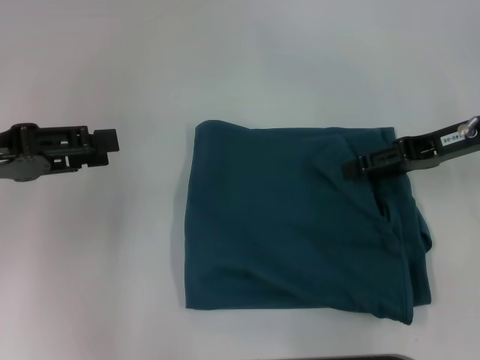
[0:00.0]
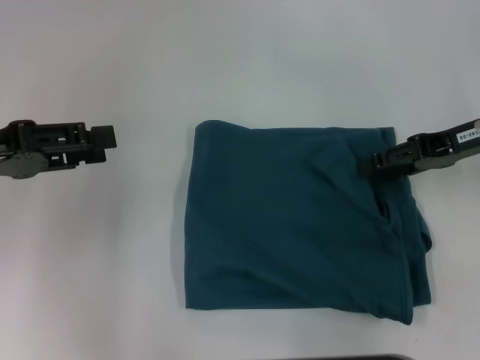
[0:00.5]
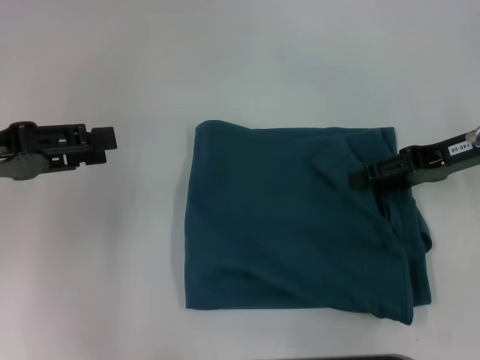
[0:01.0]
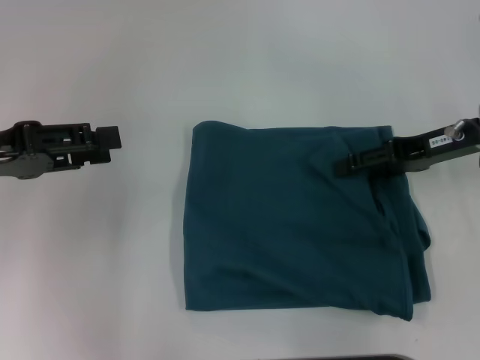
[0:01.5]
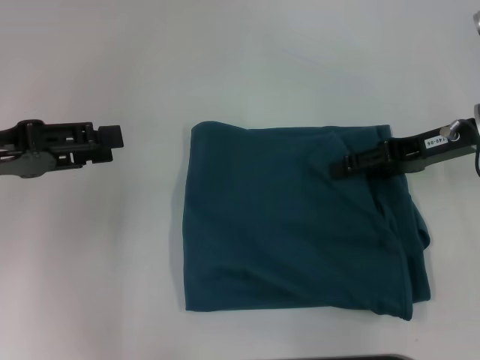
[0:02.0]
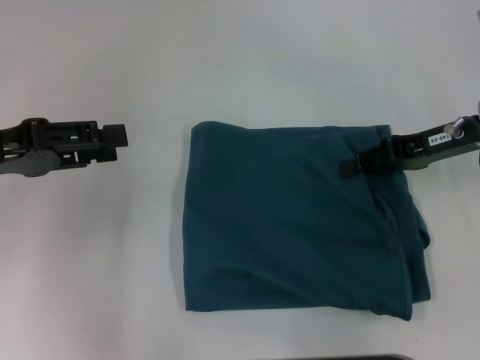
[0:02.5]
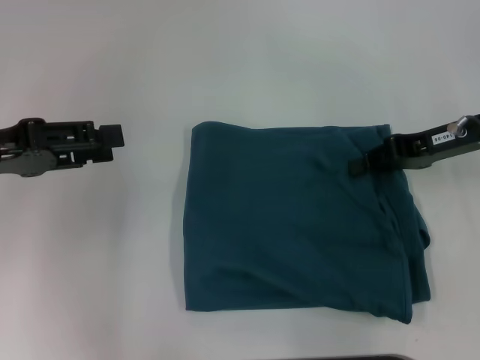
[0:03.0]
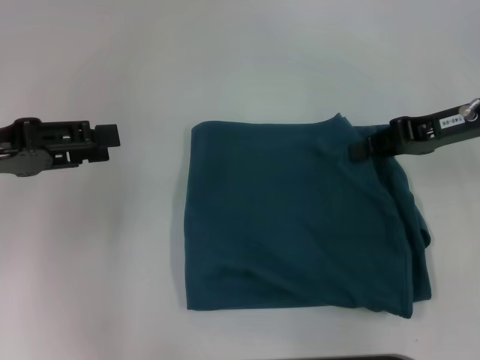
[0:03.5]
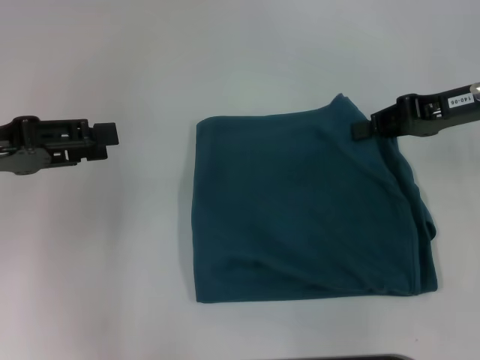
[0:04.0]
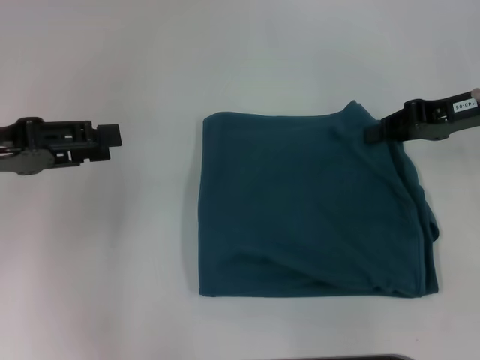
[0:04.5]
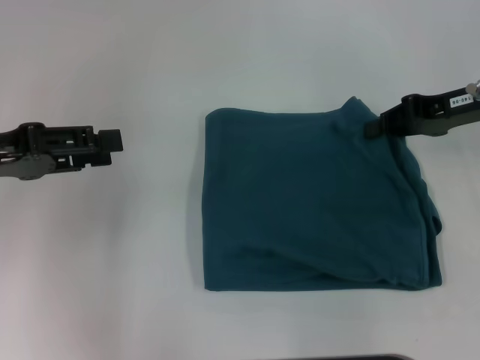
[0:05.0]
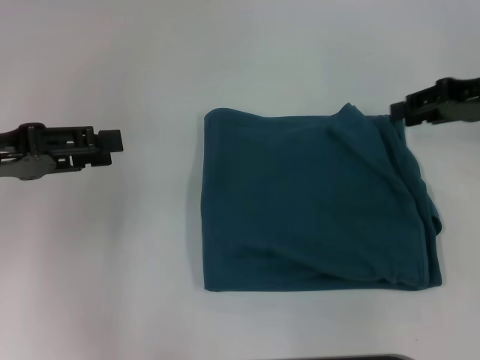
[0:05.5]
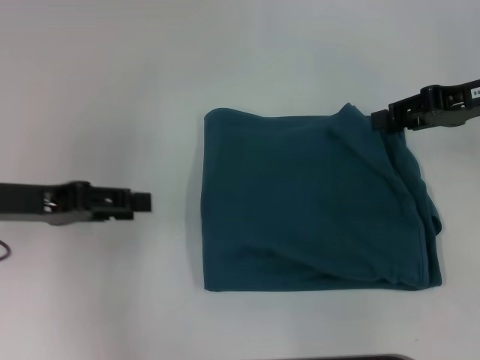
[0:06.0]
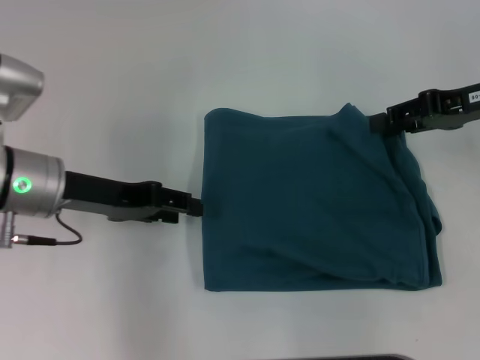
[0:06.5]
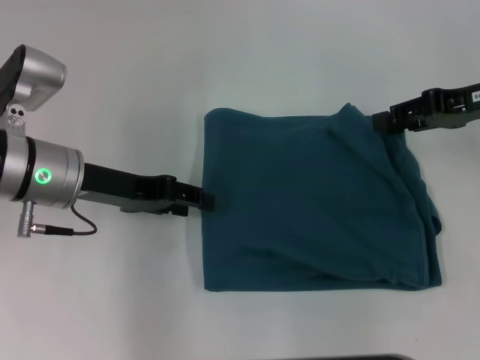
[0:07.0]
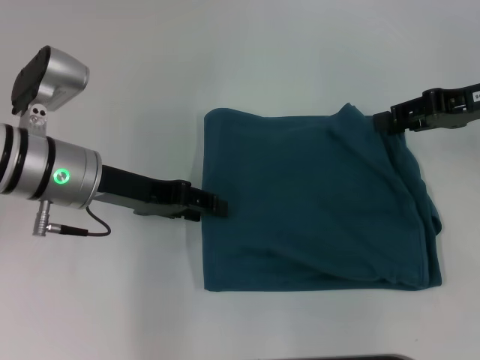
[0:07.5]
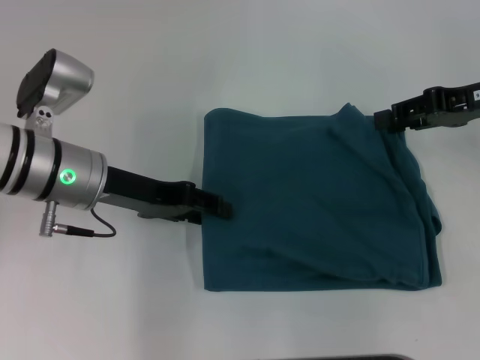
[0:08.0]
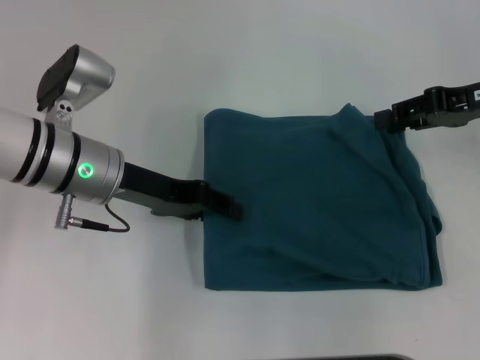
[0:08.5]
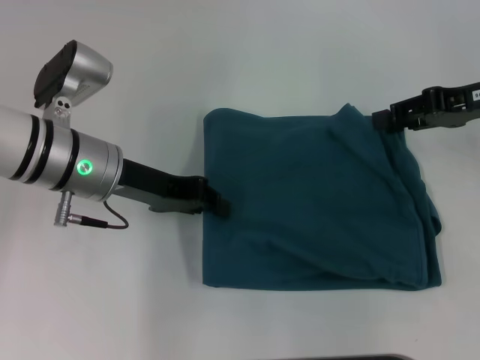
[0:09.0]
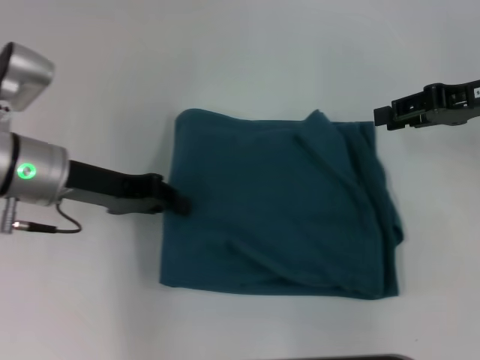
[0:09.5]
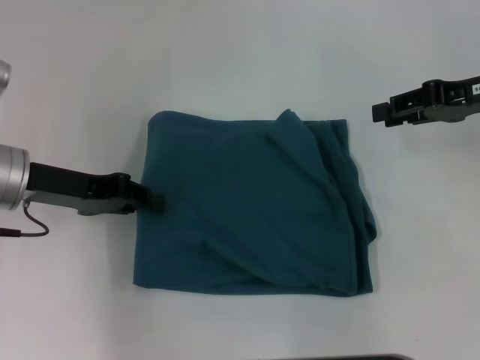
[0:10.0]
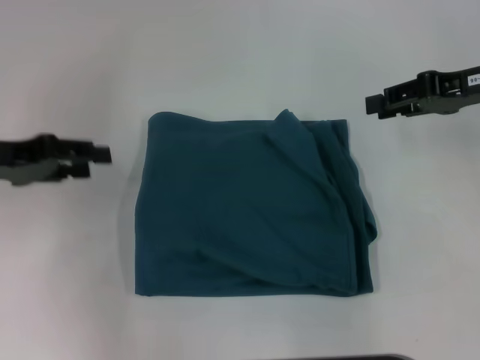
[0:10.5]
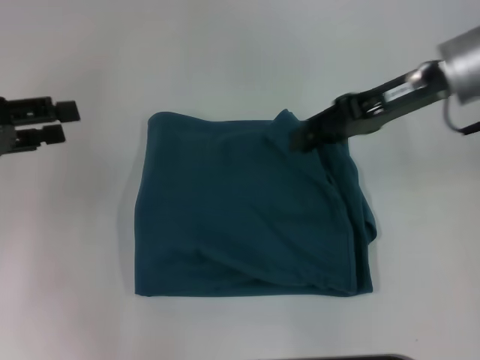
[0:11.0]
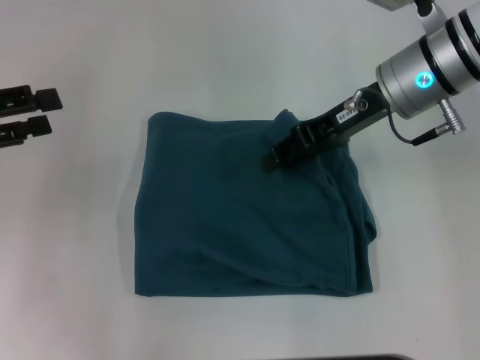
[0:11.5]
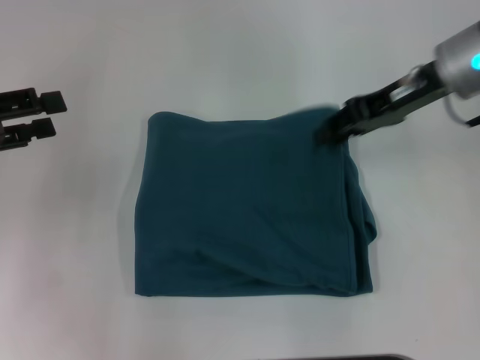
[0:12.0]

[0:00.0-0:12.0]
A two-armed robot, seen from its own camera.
0:00.0 to 0:02.0: The grippers stay close to where they were, moving slightly.
0:02.0 to 0:04.0: The right gripper closes up.
0:04.0 to 0:06.0: The grippers make only small movements.
0:06.0 to 0:08.0: The left gripper goes approximately 10 cm to the right.
0:08.0 to 0:10.0: The left gripper is displaced to the left by roughly 5 cm, and closes its fingers.
0:10.0 to 0:12.0: Both grippers move to the left, about 10 cm. The left gripper opens its fingers.

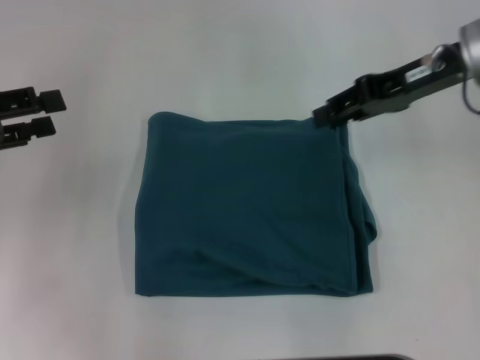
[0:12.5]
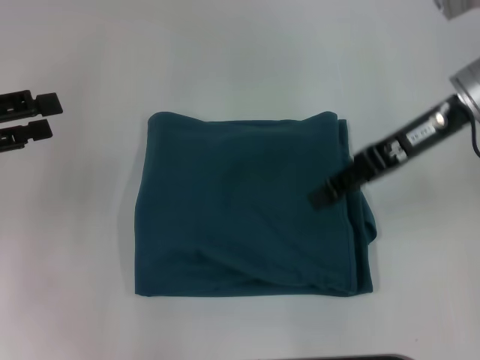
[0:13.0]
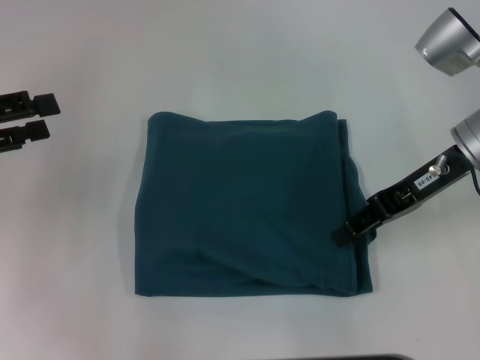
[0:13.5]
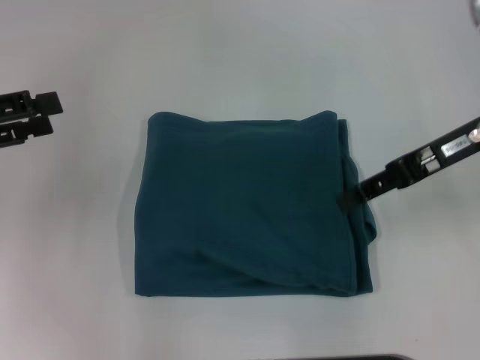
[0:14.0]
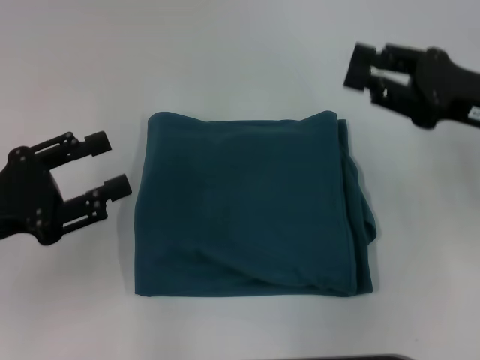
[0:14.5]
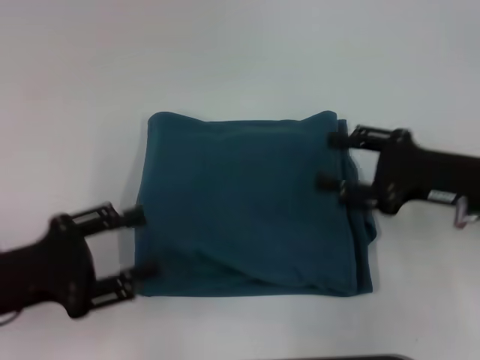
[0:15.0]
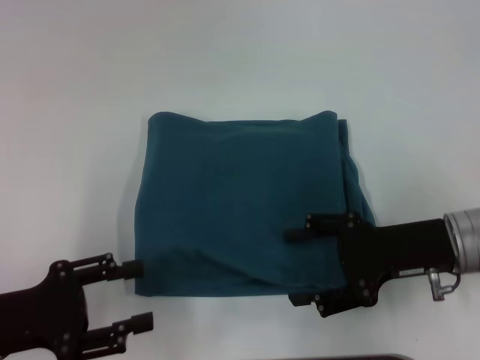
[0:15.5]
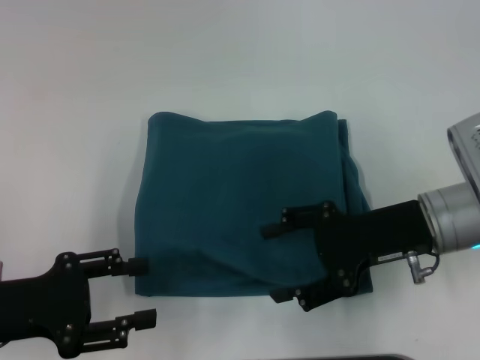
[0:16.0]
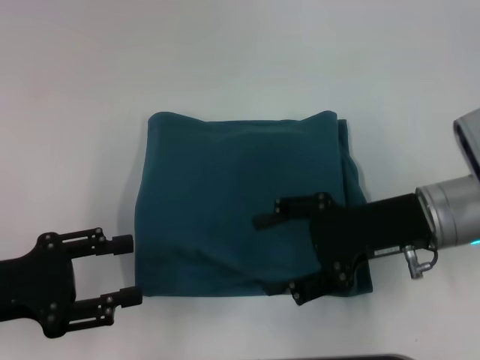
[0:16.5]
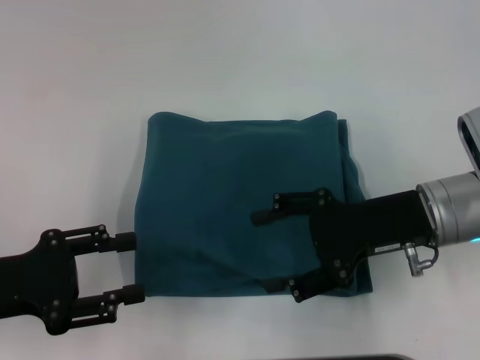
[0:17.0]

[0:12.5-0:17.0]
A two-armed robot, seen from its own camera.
0:12.5 to 0:14.5: The left gripper is displaced backward by about 5 cm; the right gripper is displaced backward and downward by about 10 cm.
0:14.5 to 0:17.0: The right gripper travels to the left by roughly 10 cm, and opens.

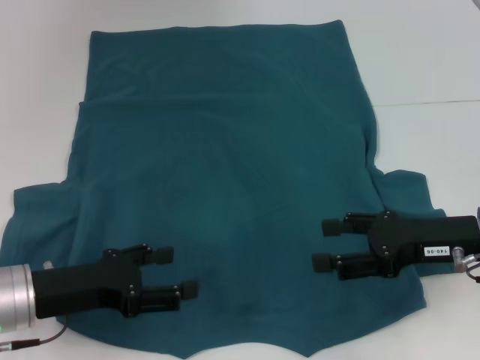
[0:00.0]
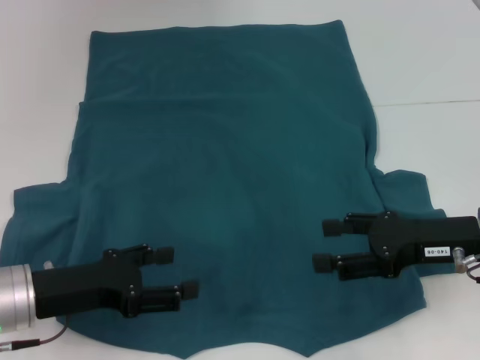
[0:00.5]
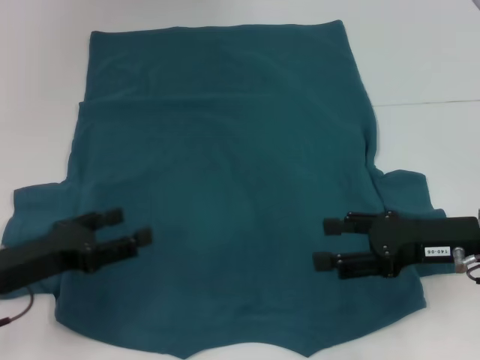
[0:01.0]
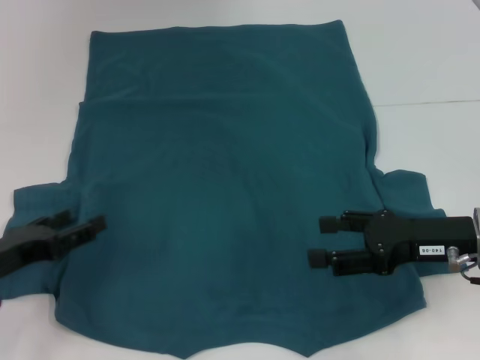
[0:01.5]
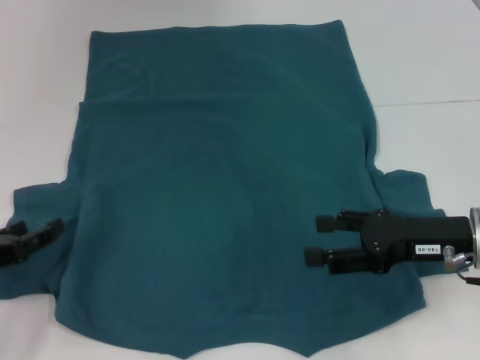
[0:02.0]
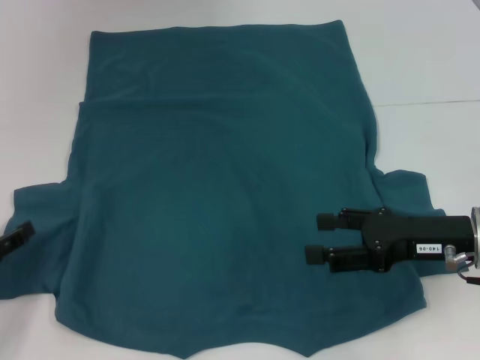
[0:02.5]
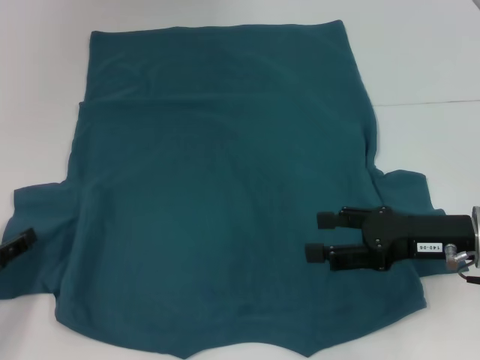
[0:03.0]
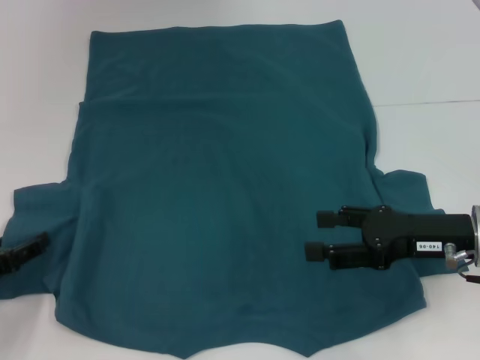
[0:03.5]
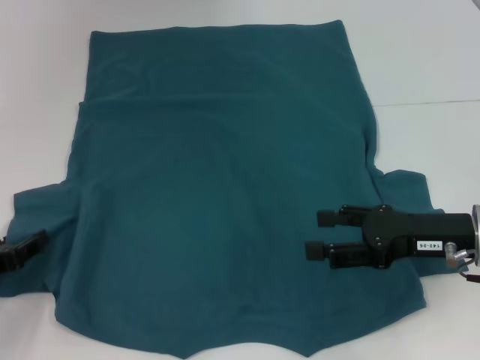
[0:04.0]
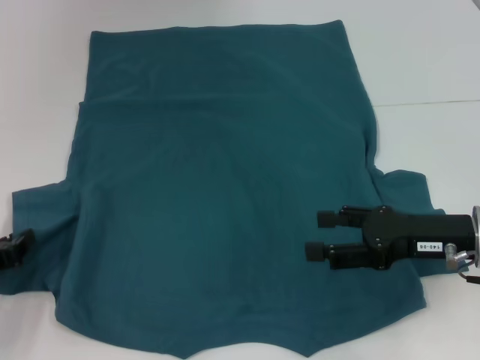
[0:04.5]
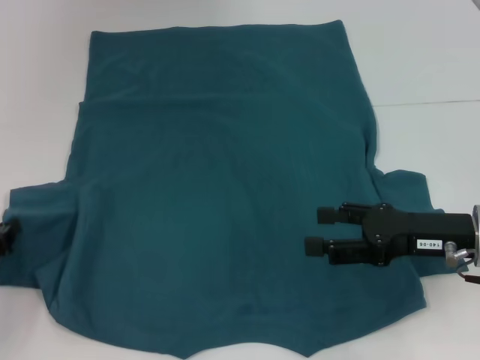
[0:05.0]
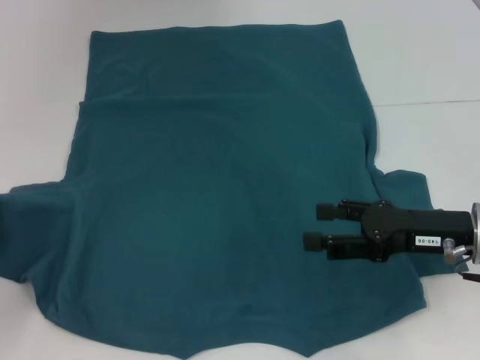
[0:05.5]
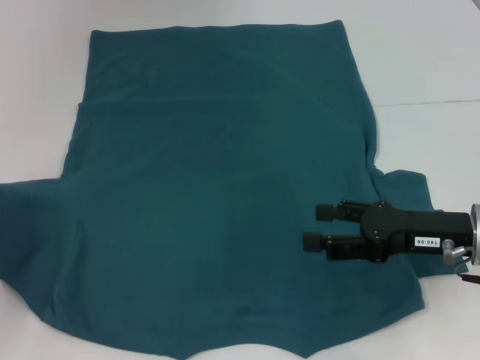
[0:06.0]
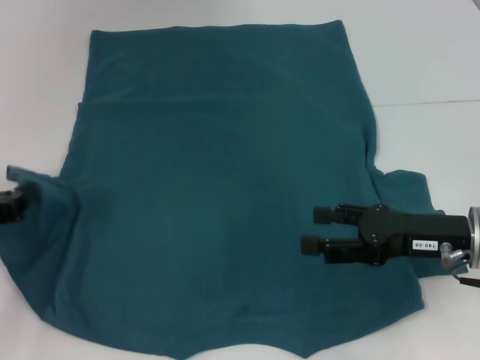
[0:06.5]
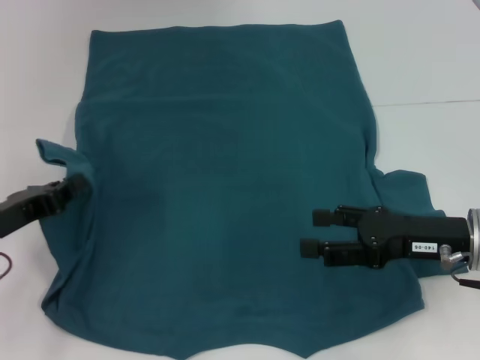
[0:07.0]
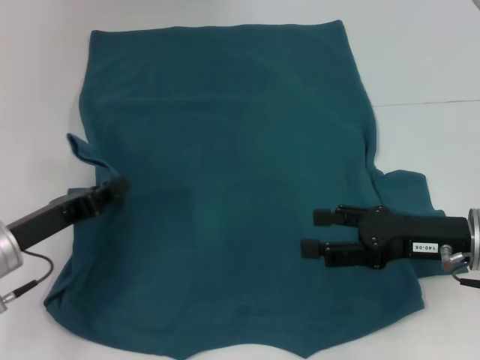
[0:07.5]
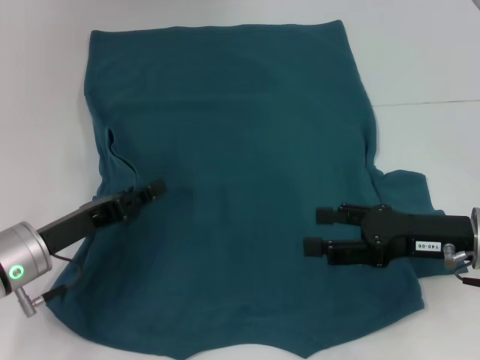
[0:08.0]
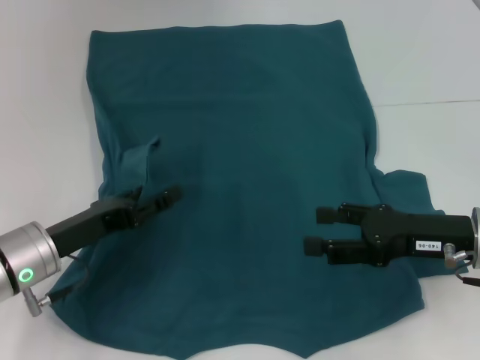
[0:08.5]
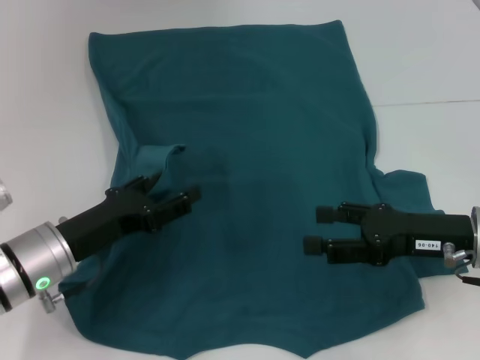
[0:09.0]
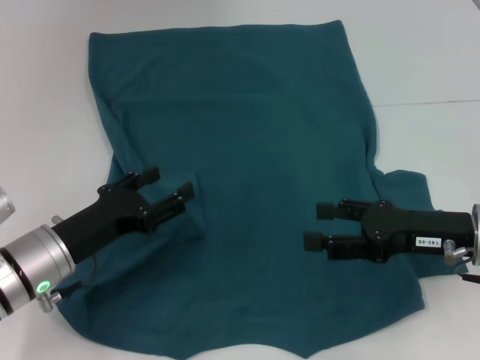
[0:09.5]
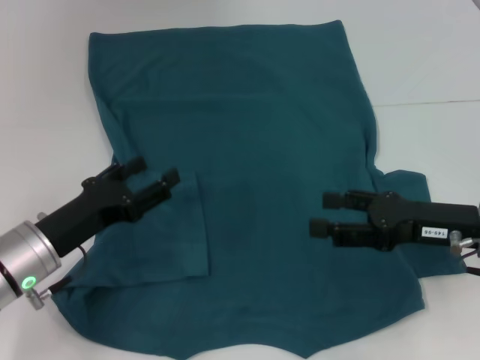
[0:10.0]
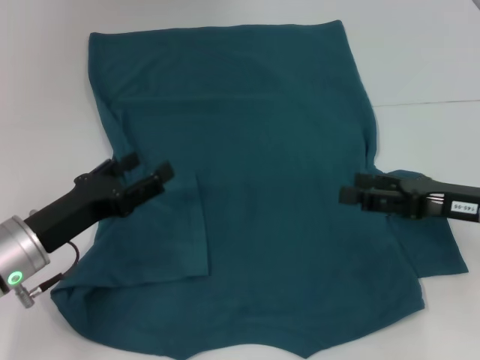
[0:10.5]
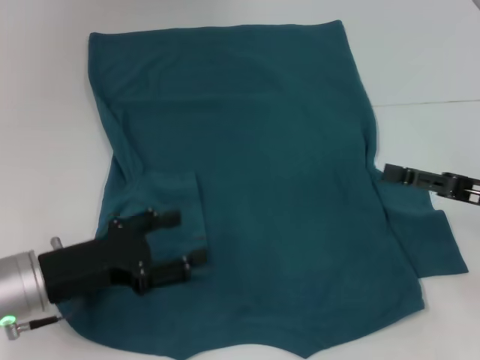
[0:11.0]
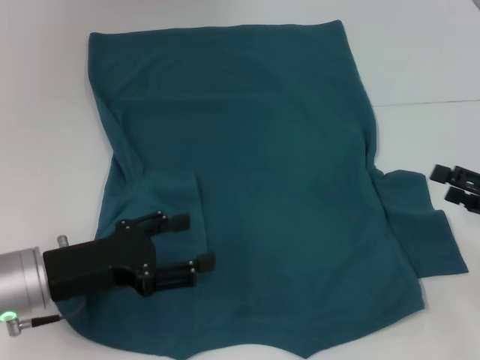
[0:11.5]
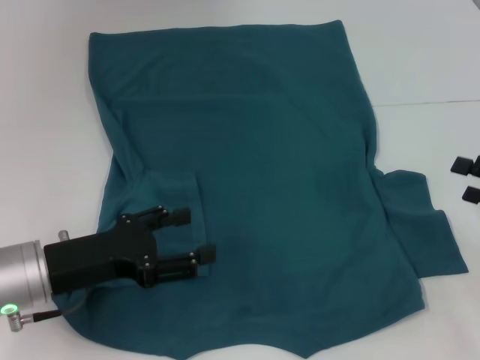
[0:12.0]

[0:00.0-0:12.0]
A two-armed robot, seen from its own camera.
Step, 0:00.0 to 0:09.5: Fold the bottom left sleeve with your left hand.
0:00.0 to 0:02.0: The left gripper travels to the left by approximately 10 cm.
0:02.0 to 0:04.0: The grippers make only small movements.
0:04.0 to 0:06.0: The left gripper moves about 5 cm, and closes.
0:06.0 to 0:08.0: The left gripper heads to the right, covering some 10 cm, and opens its fingers.
0:08.0 to 0:10.0: The left gripper opens up.
0:10.0 to 0:12.0: The right gripper travels to the right by approximately 10 cm.
